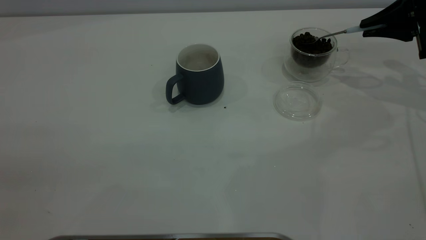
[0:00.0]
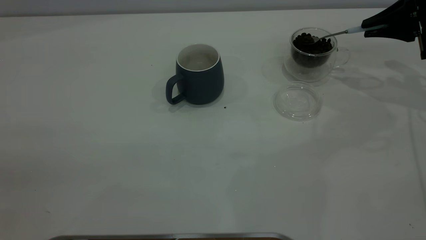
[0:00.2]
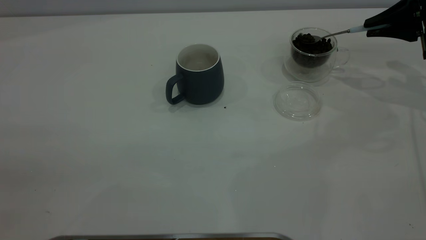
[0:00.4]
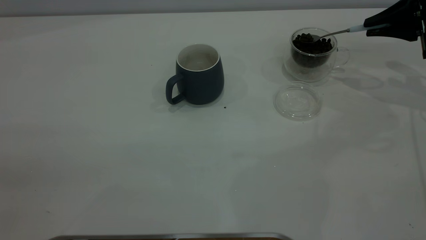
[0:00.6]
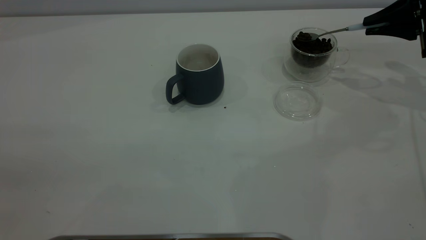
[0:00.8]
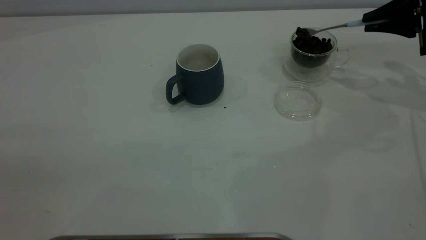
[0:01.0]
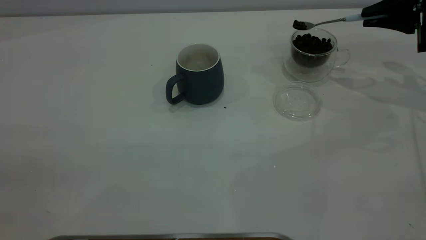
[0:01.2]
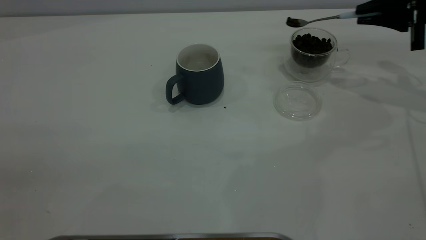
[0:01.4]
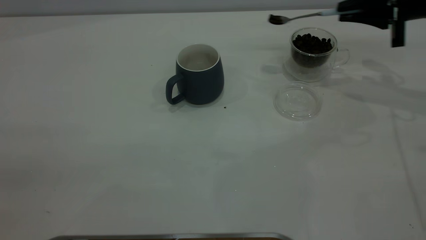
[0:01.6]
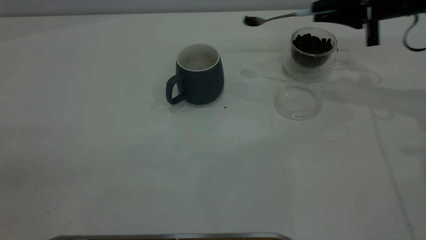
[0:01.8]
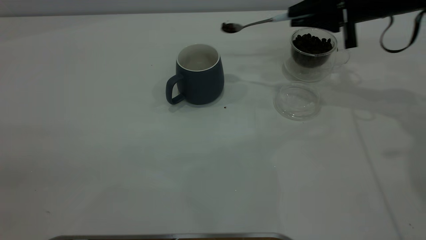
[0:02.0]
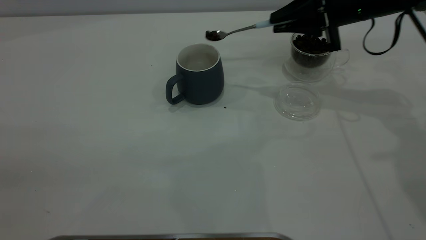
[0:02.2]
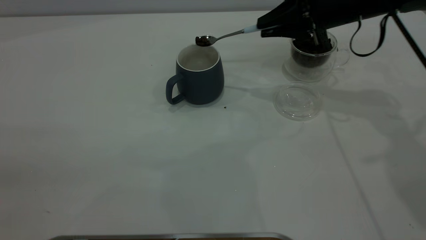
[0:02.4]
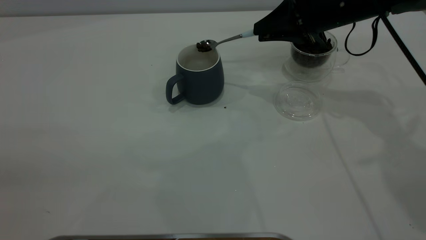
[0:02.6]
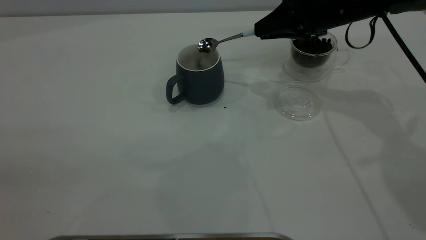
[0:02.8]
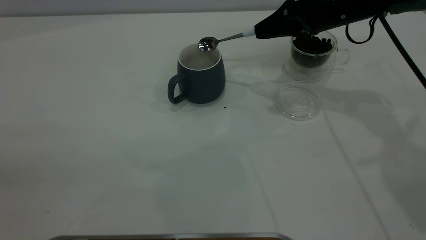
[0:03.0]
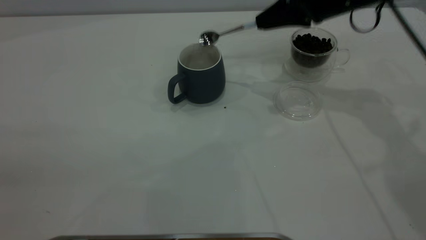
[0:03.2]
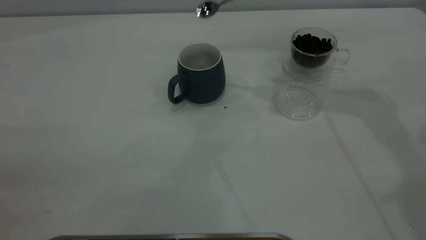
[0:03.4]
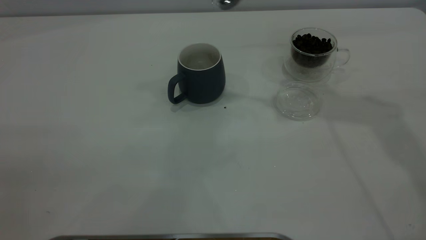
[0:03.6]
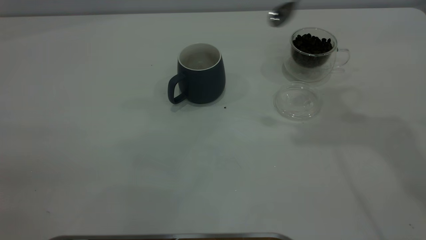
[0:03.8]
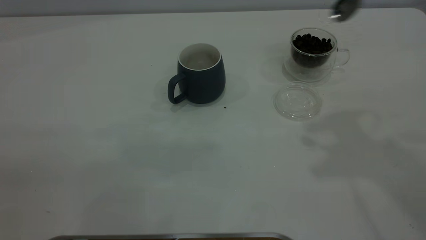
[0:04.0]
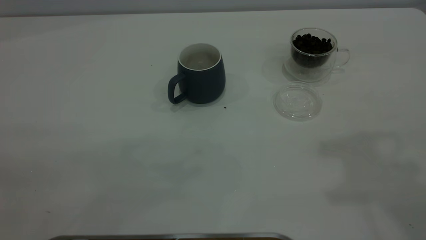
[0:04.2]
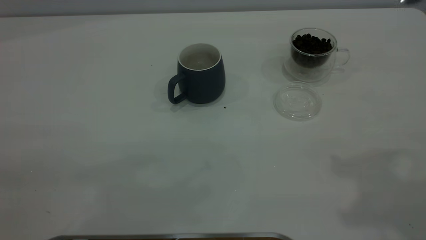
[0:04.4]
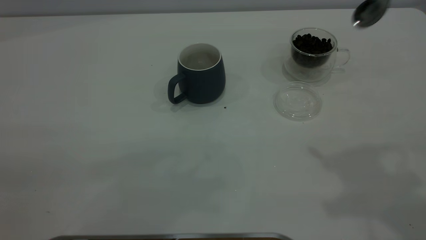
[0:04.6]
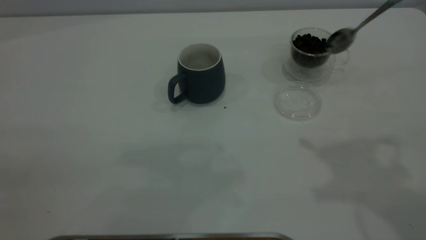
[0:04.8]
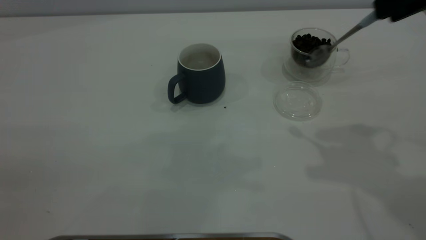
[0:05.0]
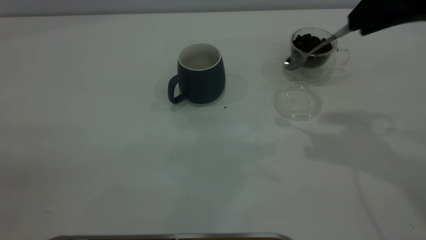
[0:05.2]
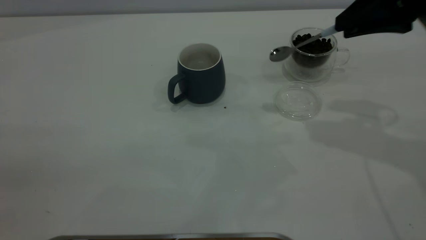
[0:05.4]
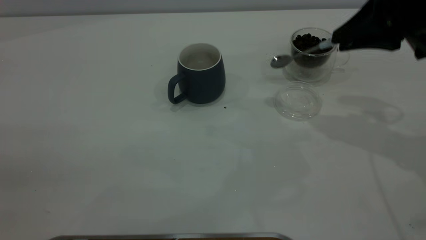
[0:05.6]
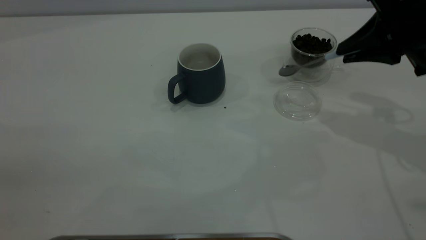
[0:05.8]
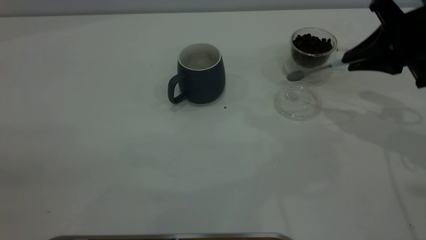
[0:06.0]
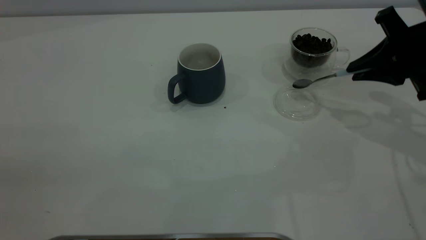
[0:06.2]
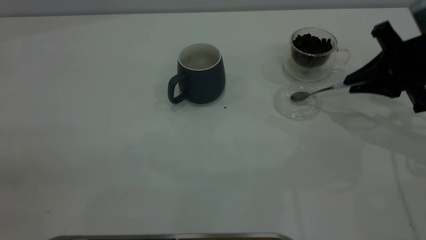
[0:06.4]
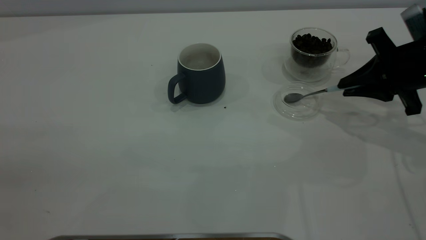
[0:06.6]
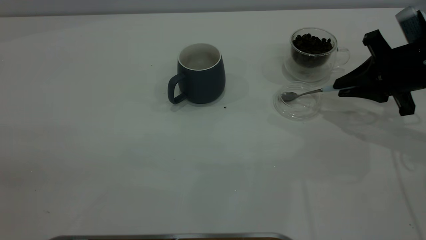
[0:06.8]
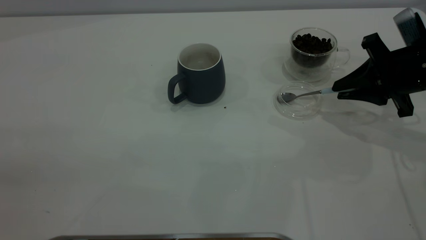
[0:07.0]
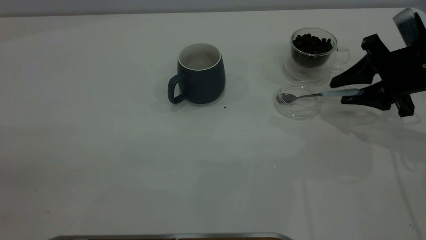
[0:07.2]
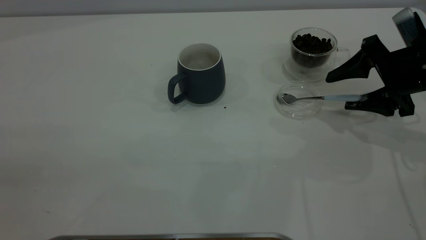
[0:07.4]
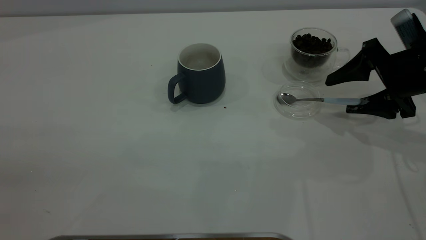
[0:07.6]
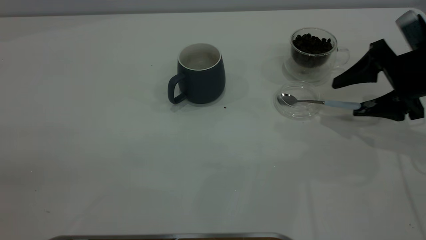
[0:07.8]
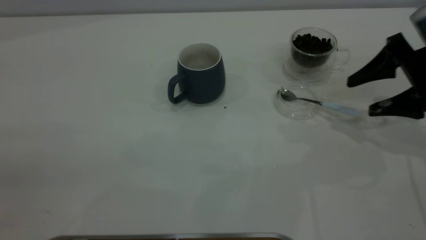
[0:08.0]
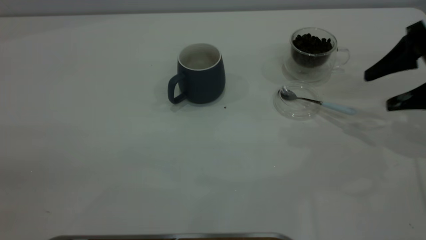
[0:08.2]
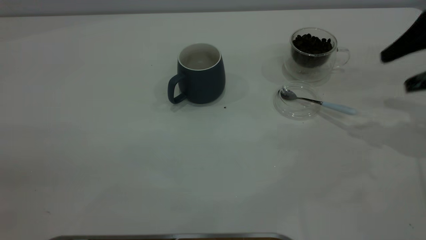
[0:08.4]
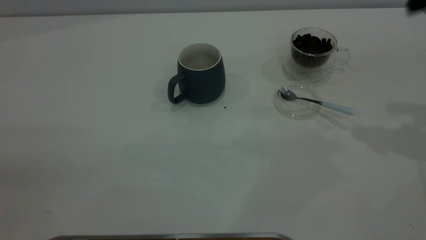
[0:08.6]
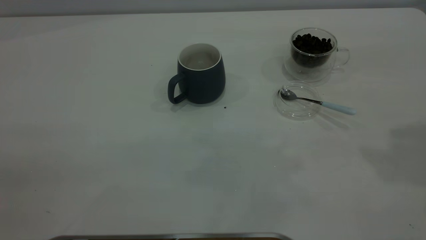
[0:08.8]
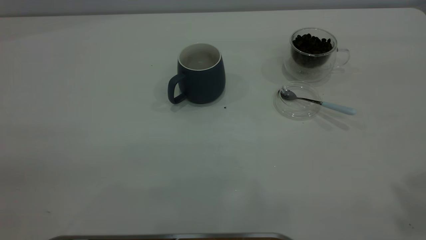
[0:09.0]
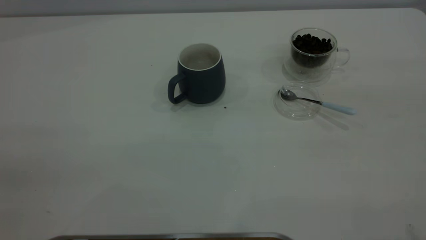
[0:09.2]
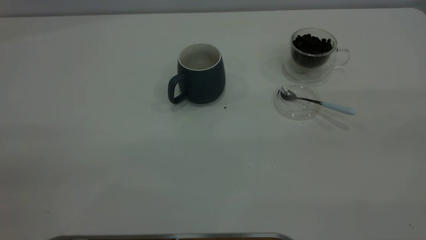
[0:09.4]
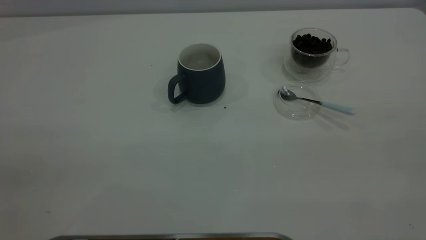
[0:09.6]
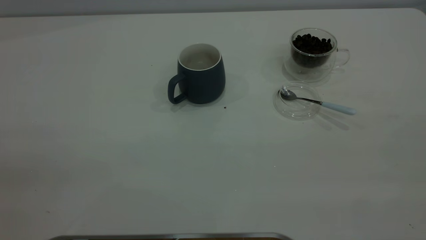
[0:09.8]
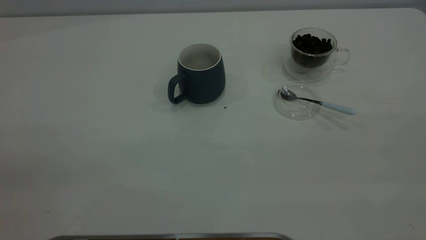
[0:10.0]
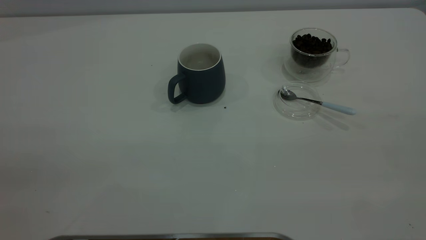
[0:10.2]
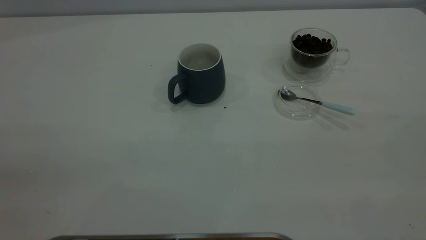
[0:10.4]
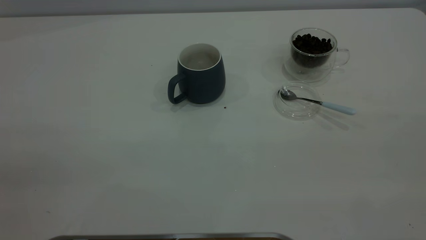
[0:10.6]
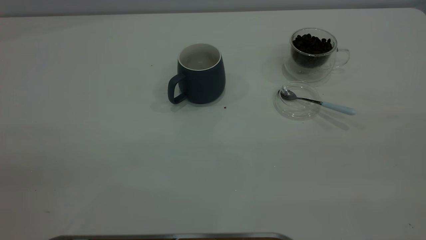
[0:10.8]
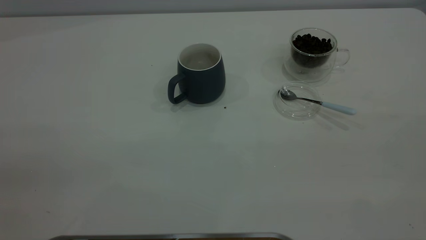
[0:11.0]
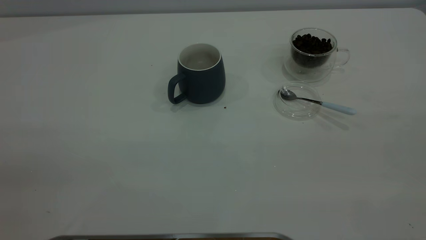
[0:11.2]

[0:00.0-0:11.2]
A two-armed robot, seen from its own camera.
Task of the whole recording: the left gripper place the grey cup in the center of the table, the right gripper take the blue spoon from the cup lid and scoop out the coffee beans from the coffee cup and put them into the grey cup, the right gripper put the spoon back into the cup lid.
Step, 0:00.0 to 0:03.2: Scoop a spoonful of beans into the cup.
Step, 0:03.4 to 0:08.2: Place the spoon back in its original place.
0:00.0 to 0:01.6: The right gripper goes approximately 5 cm to the left.
0:01.6 to 0:03.2: The right gripper moves to the left, roughly 10 cm.
0:03.2 to 0:04.8: The right gripper is displaced backward and upward by some 25 cm.
0:04.8 to 0:06.4: The right gripper moves downward, roughly 25 cm.
0:06.4 to 0:08.0: The right gripper opens up.
0:08.0 to 0:09.6: The right gripper moves backward and upward, roughly 40 cm.
